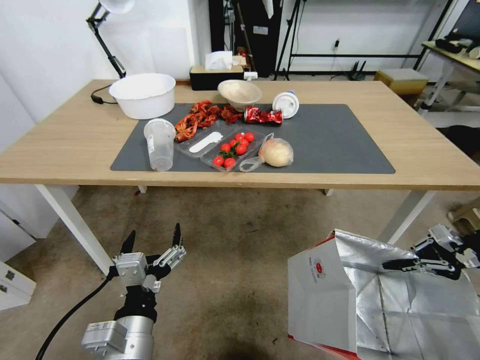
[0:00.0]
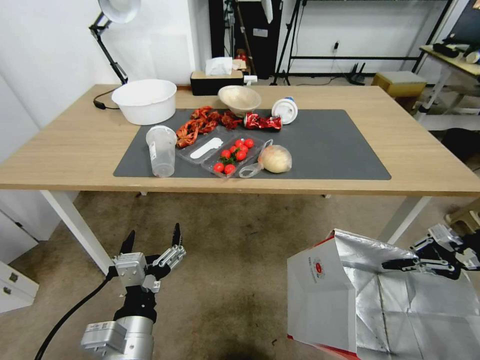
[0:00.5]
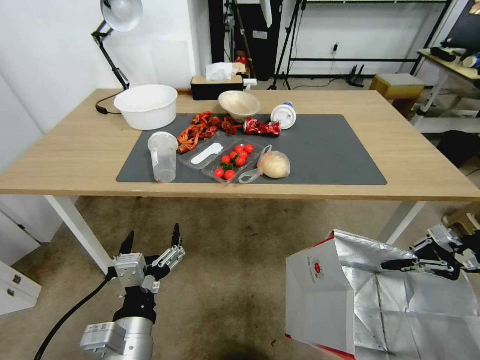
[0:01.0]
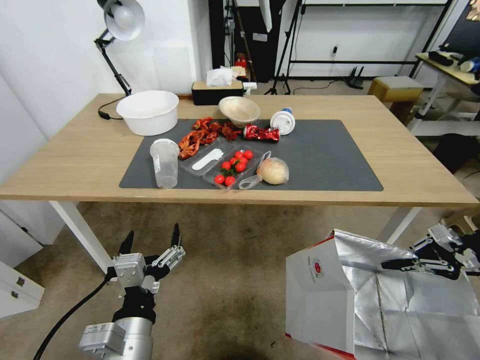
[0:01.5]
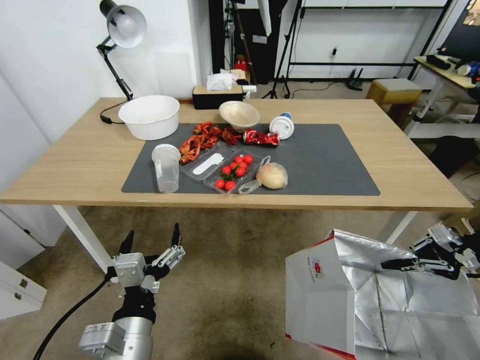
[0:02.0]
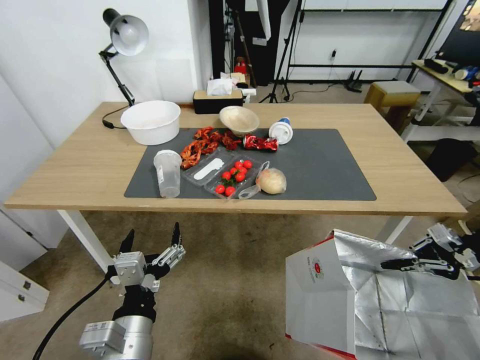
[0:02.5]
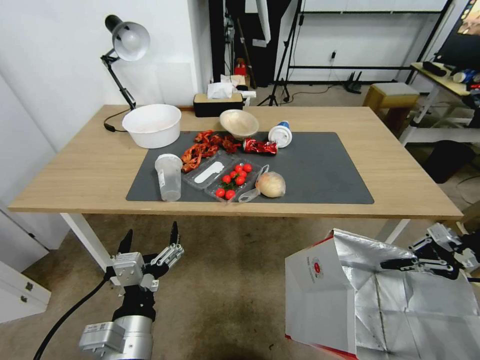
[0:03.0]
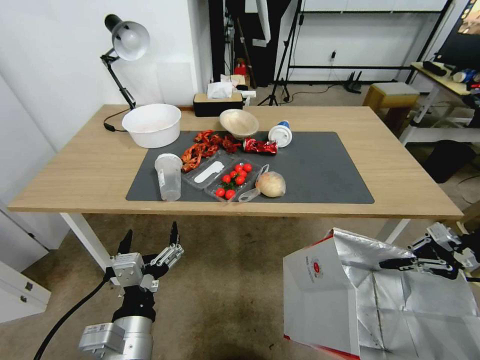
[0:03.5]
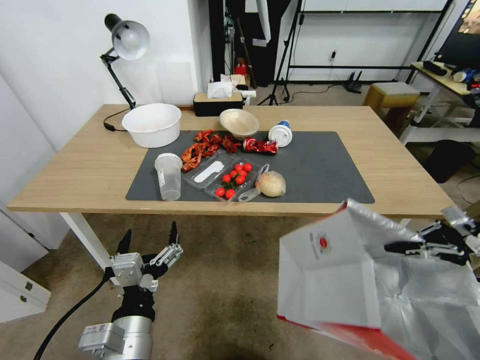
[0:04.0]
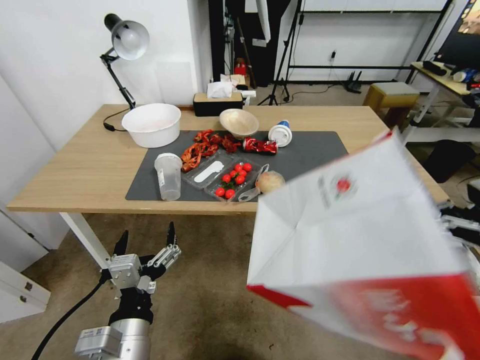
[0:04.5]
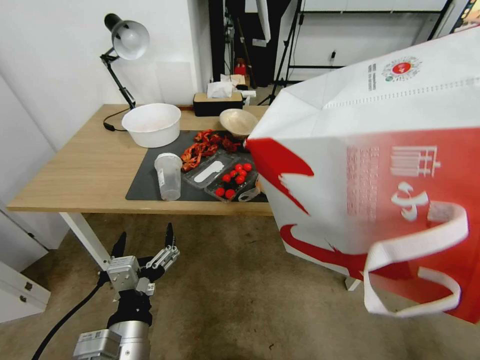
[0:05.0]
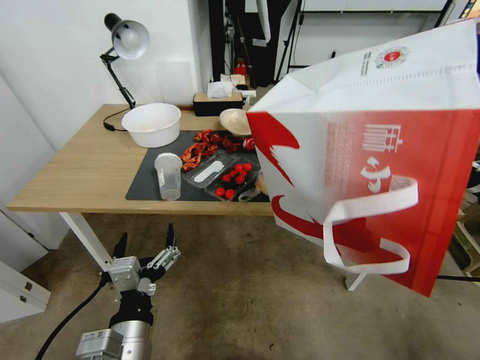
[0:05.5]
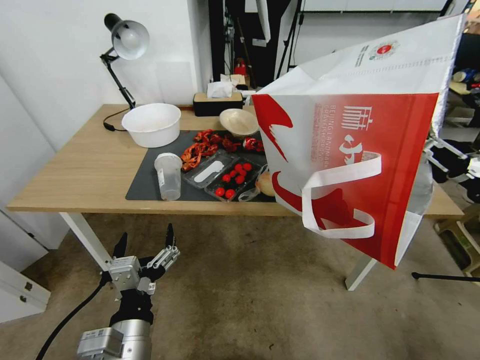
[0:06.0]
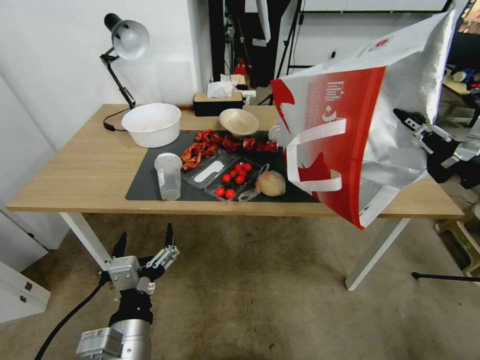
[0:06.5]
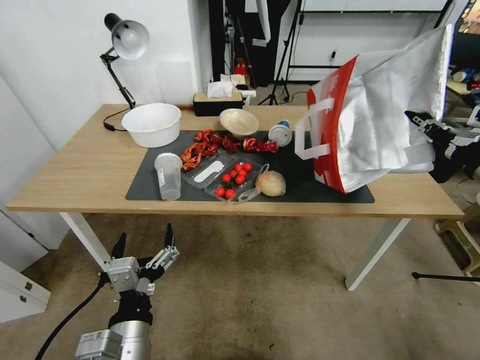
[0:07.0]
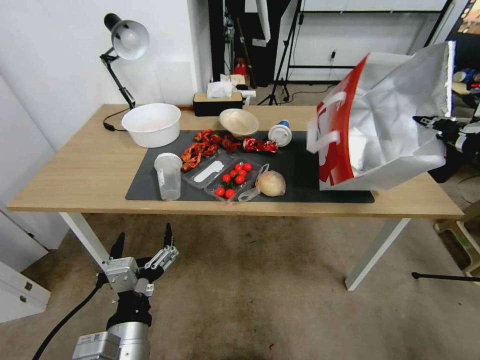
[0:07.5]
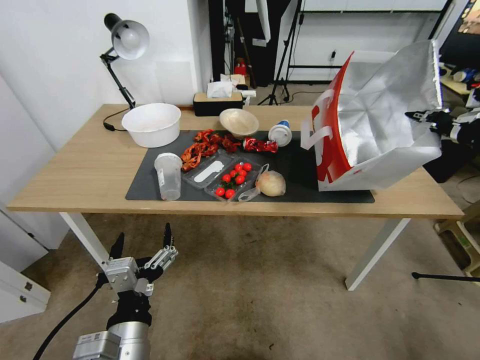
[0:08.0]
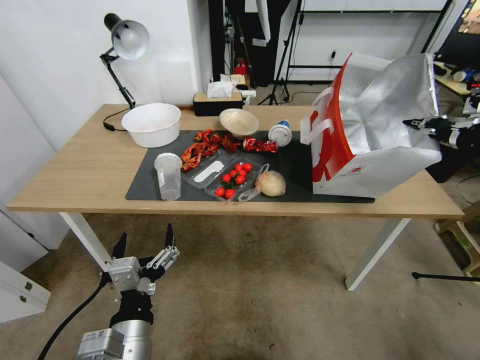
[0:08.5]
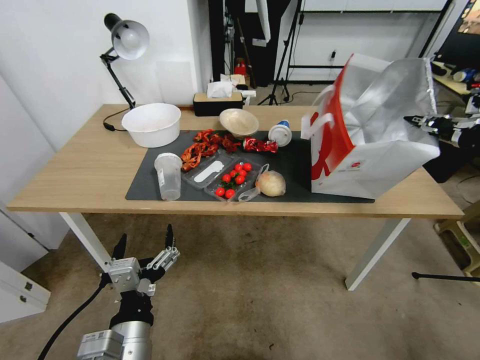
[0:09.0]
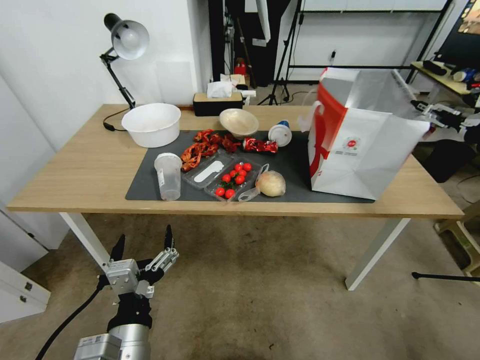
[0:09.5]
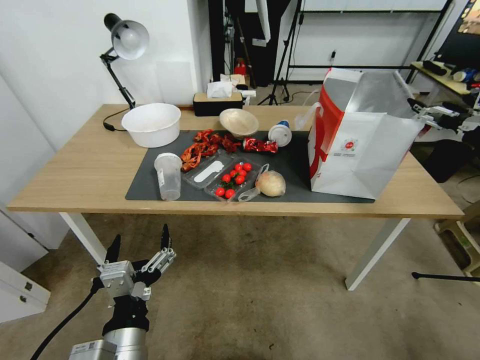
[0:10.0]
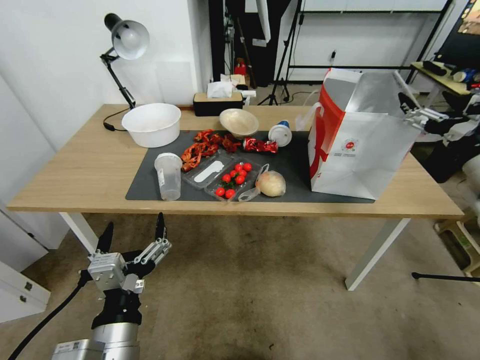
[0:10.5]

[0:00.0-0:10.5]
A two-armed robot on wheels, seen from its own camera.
Task of the whole recording: Pick up the food delivery bag from the floor and place it on the table.
0:04.0 to 0:06.5: The right gripper heads to the left, covering about 10 cm.
0:06.5 to 0:08.5: The right gripper goes about 10 cm upward.
0:08.5 to 0:10.5: The right gripper travels downward and to the left by about 10 cm, and opens up.

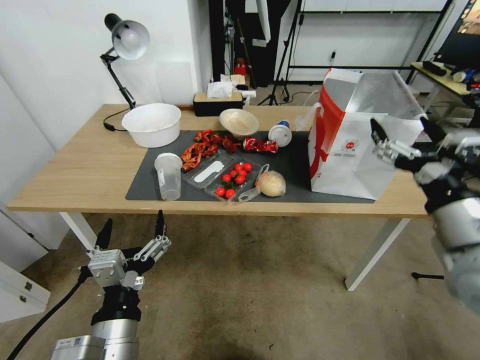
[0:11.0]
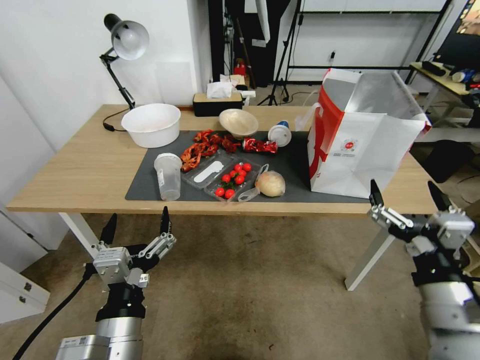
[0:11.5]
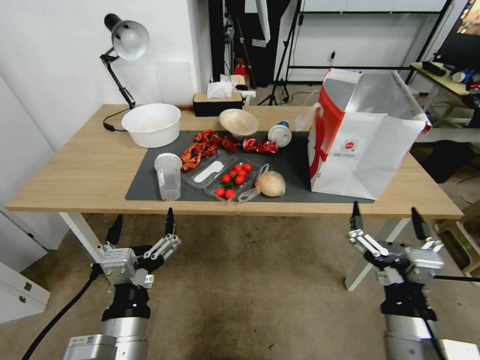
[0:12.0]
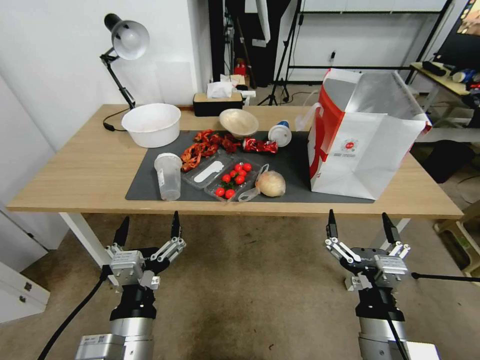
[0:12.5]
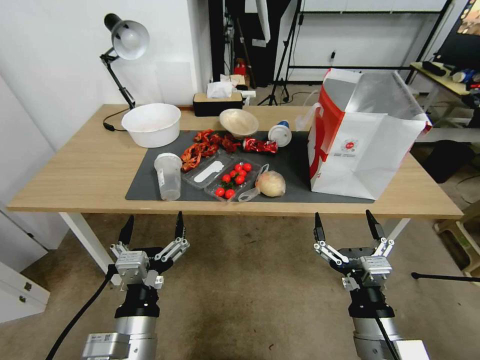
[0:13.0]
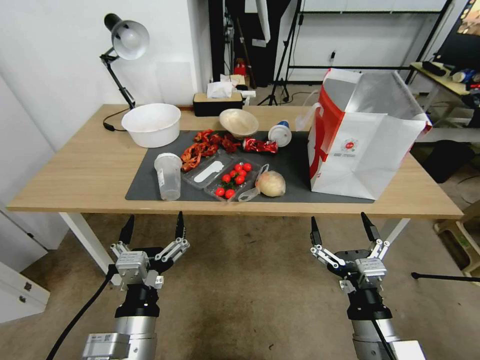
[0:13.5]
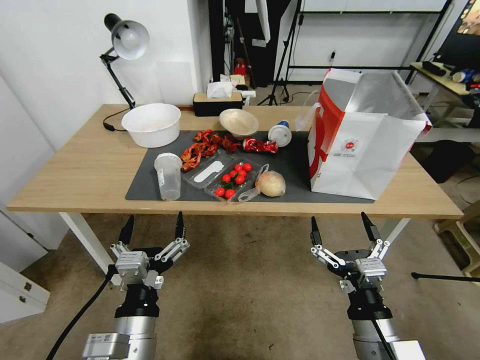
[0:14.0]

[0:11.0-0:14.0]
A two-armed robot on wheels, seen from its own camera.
Task of the whole recording: Pick up the food delivery bag from the floor and place it on the table.
0:11.0 to 0:12.5: The right gripper is displaced downward, to the left and backward by about 25 cm.
0:12.5 to 0:14.0: The grippers make only small movements.
